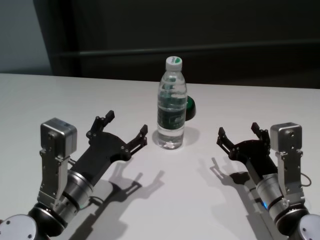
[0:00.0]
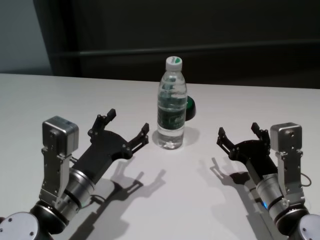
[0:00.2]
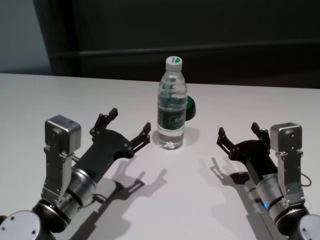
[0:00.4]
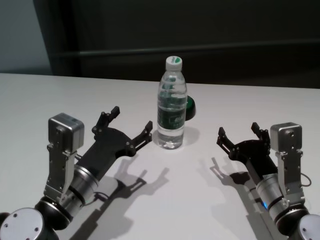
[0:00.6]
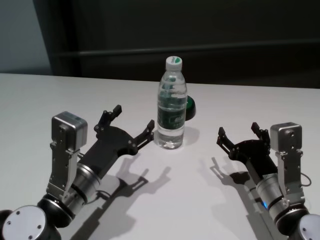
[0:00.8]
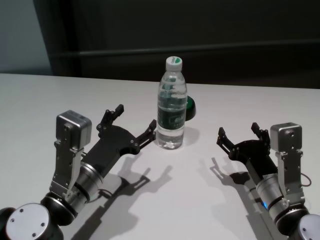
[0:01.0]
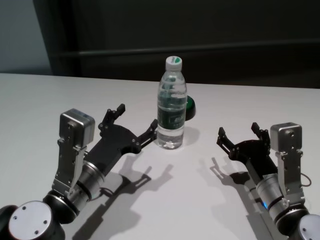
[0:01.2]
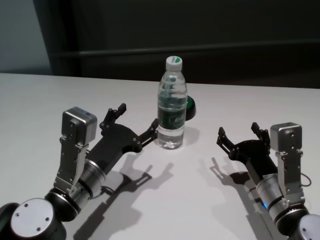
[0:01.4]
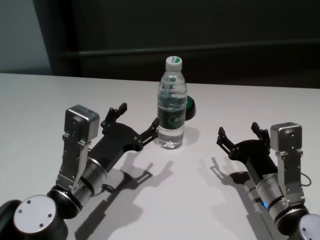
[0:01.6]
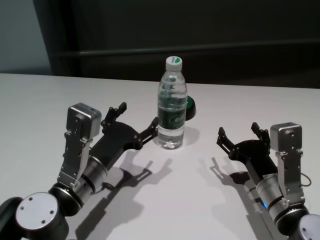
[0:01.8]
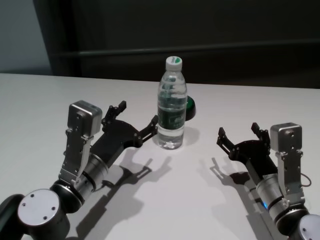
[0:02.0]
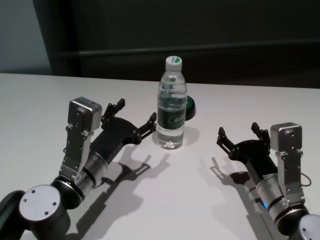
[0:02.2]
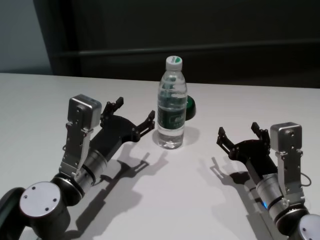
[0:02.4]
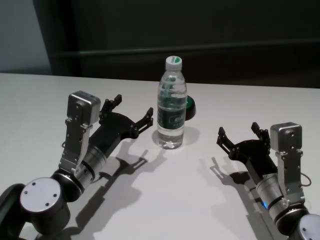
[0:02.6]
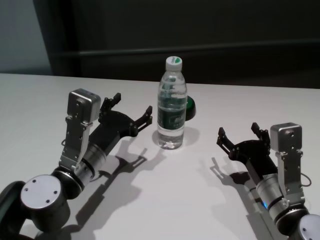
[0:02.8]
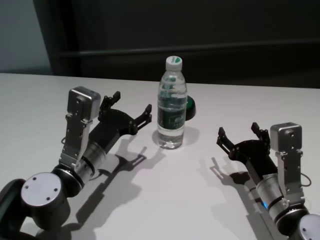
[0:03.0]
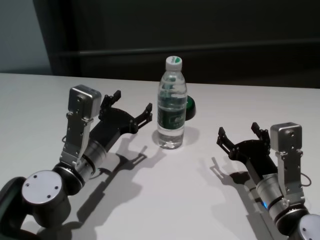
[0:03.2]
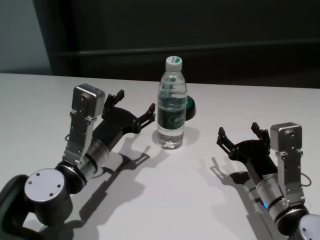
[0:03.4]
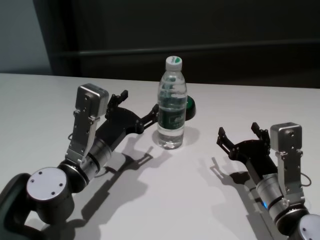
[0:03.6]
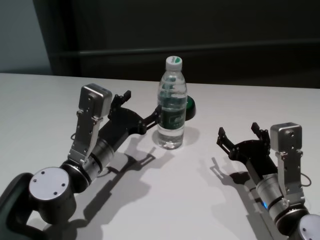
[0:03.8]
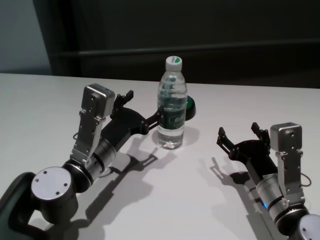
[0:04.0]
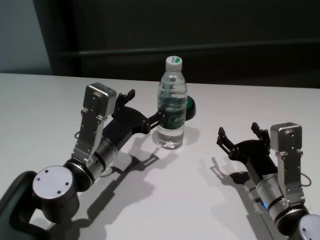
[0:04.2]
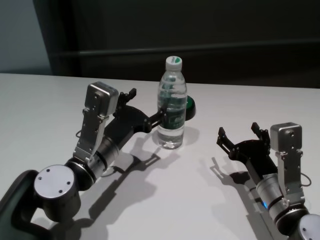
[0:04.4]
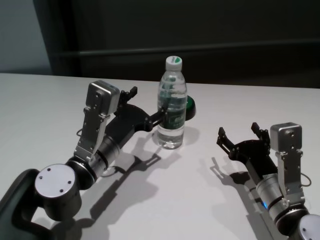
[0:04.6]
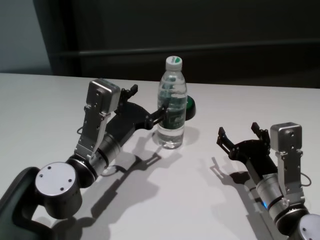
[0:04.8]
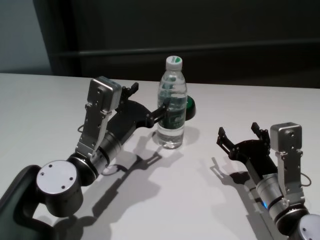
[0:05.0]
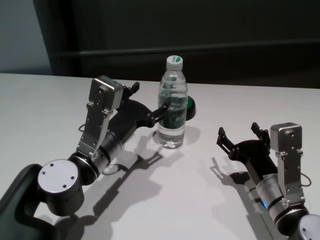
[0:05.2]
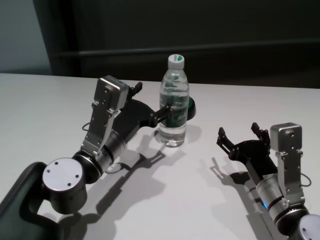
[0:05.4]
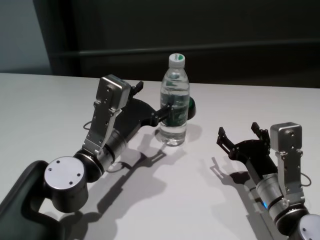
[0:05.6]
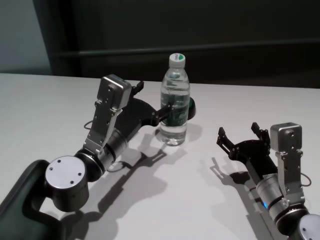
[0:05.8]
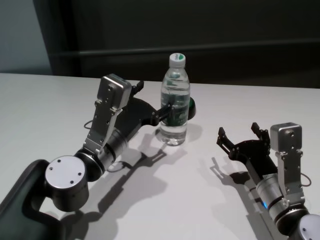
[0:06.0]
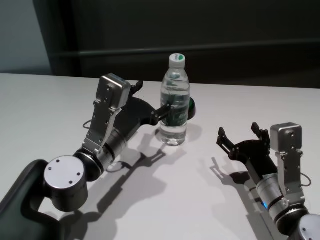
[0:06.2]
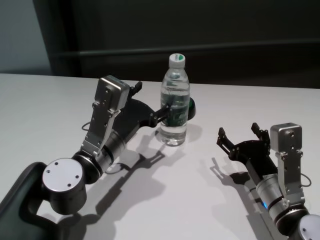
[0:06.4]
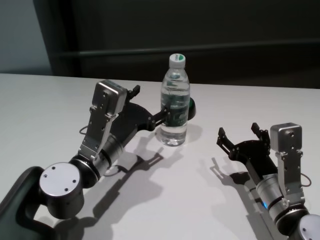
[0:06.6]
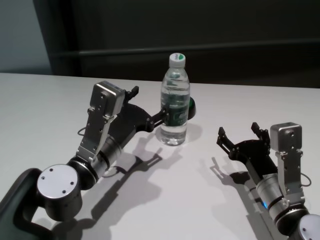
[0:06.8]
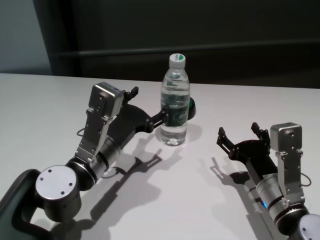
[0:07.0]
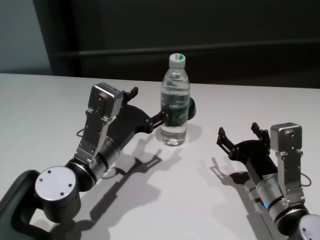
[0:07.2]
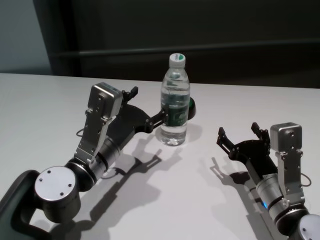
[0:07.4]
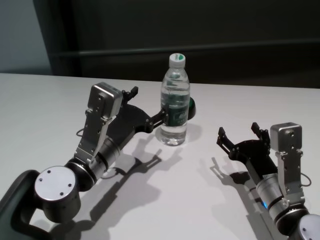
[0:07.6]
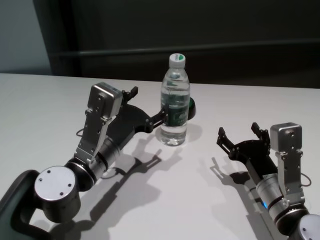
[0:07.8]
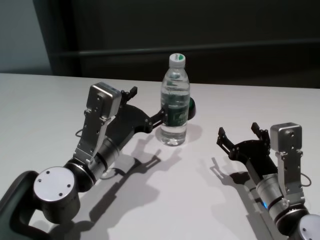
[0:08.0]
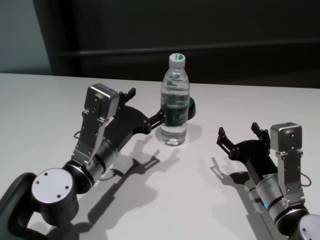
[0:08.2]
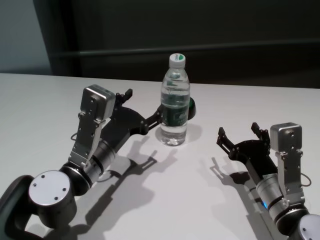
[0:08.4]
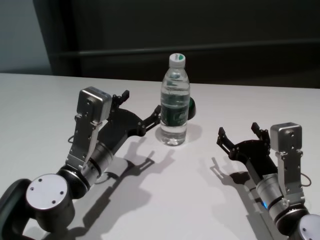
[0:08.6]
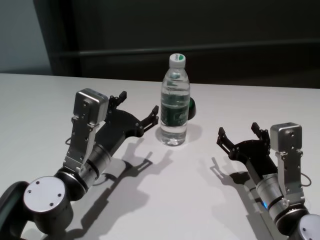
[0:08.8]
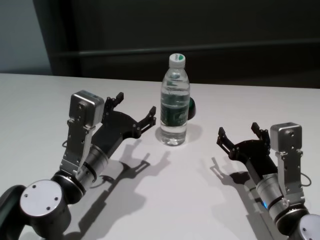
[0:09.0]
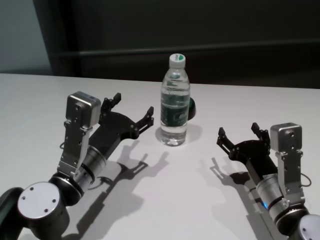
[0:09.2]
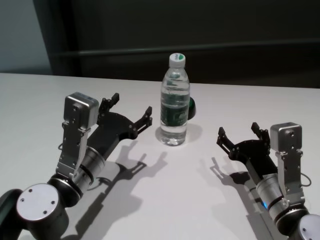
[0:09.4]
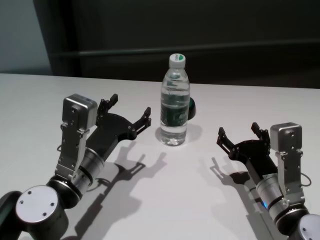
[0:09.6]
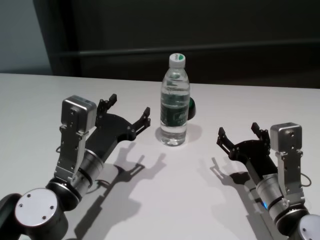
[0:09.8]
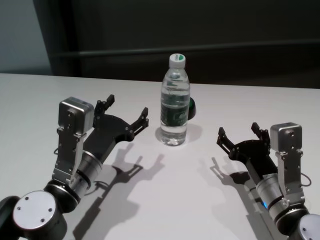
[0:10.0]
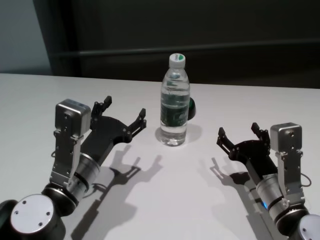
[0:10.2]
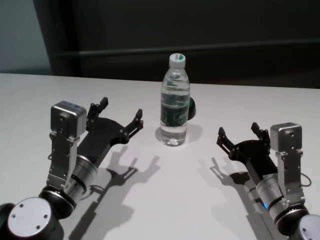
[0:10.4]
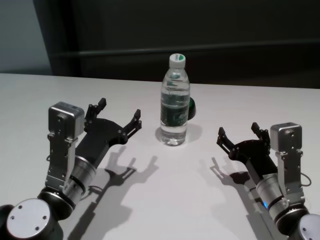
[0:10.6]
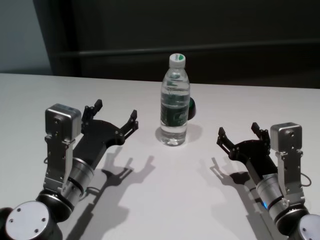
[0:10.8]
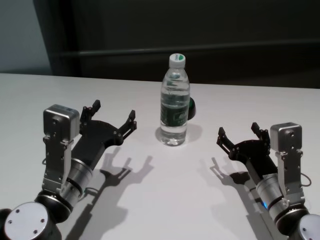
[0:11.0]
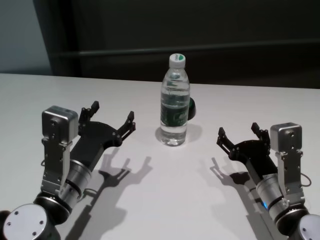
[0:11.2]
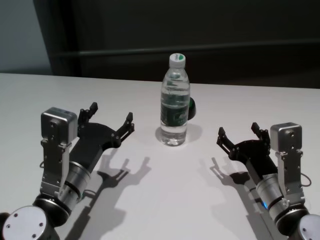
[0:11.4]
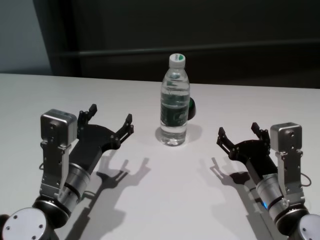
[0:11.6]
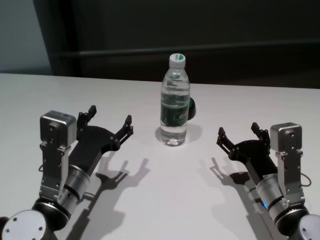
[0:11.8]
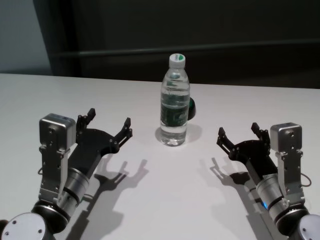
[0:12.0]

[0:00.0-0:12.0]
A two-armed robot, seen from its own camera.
Task of the whole recording: return to a safe position after touching an obstacle with your arm on the white table.
Step, 0:00.0 to 0:08.8: Touch the bottle with left gripper.

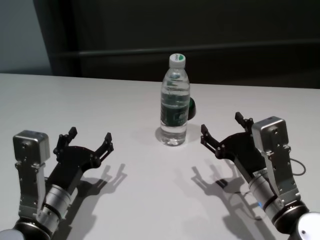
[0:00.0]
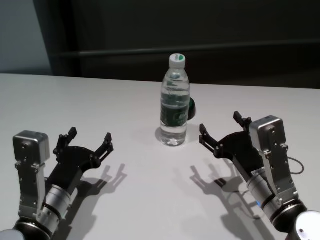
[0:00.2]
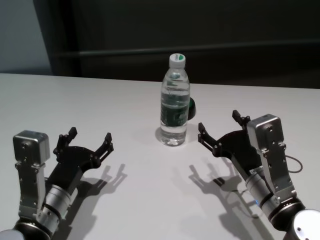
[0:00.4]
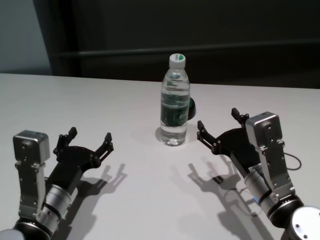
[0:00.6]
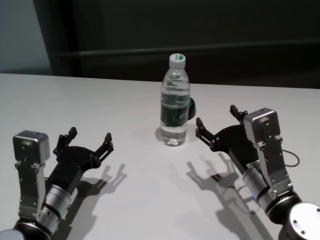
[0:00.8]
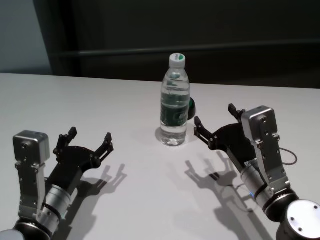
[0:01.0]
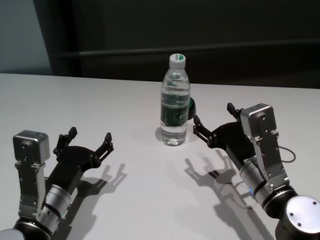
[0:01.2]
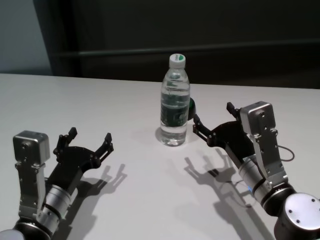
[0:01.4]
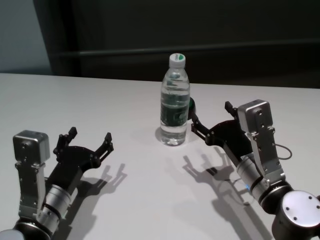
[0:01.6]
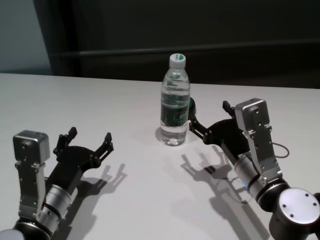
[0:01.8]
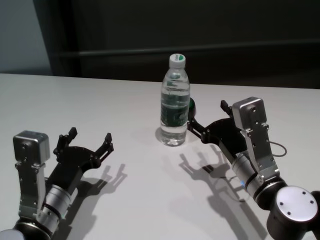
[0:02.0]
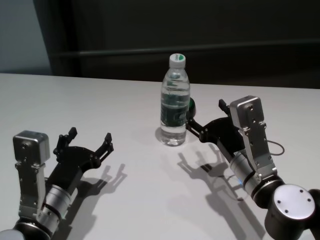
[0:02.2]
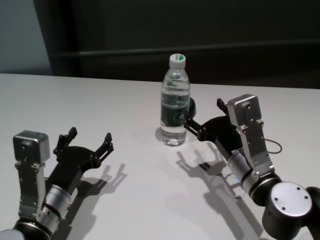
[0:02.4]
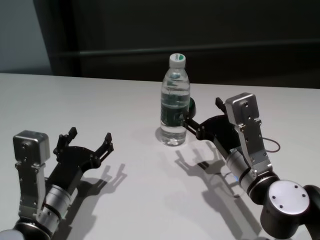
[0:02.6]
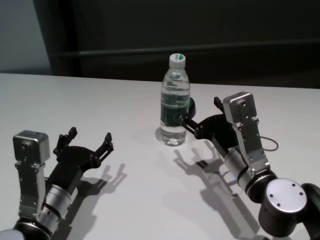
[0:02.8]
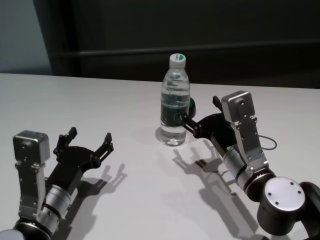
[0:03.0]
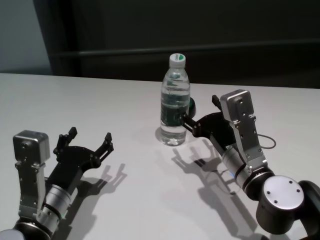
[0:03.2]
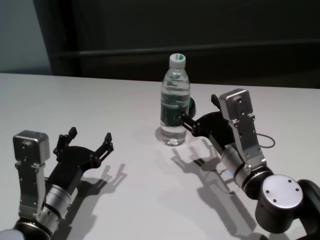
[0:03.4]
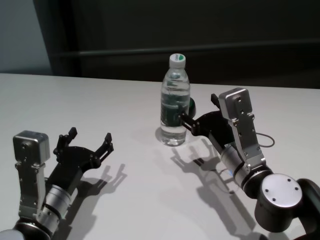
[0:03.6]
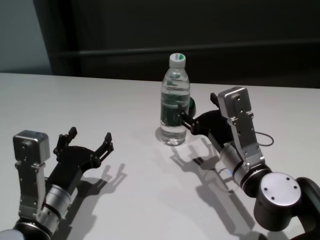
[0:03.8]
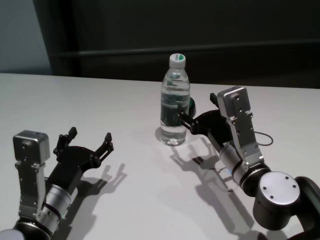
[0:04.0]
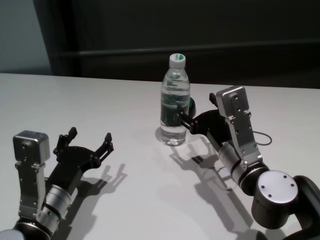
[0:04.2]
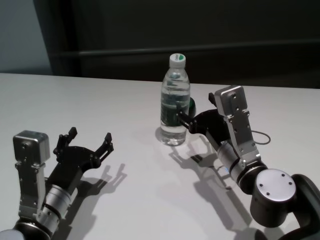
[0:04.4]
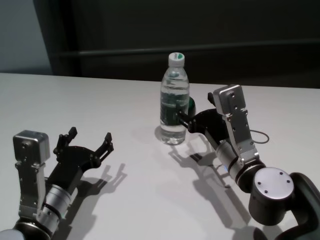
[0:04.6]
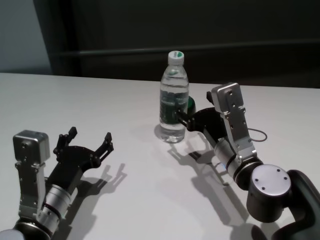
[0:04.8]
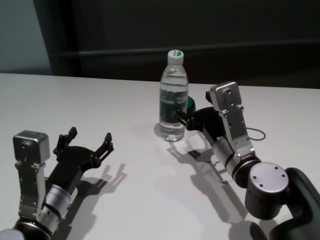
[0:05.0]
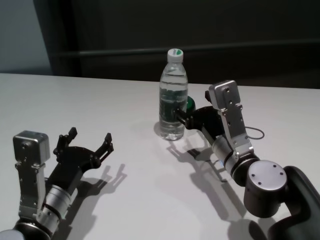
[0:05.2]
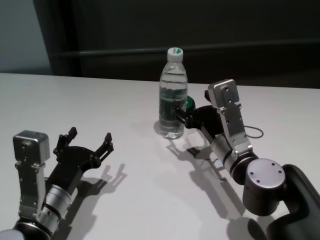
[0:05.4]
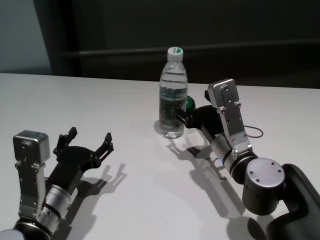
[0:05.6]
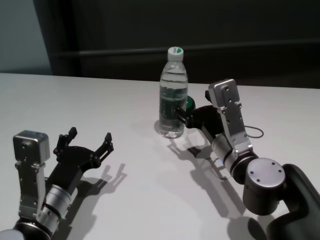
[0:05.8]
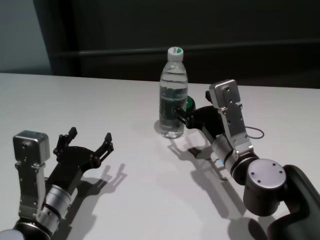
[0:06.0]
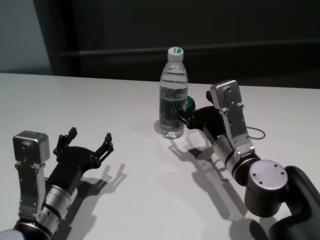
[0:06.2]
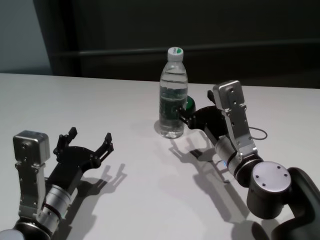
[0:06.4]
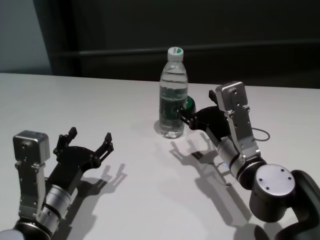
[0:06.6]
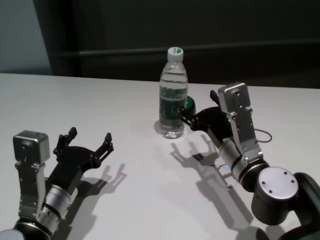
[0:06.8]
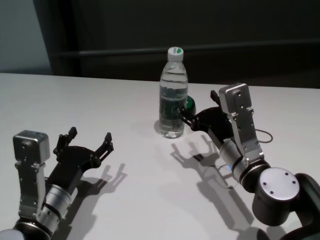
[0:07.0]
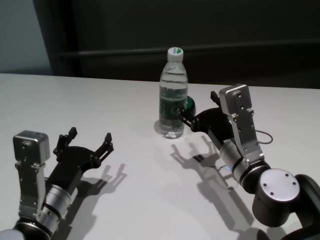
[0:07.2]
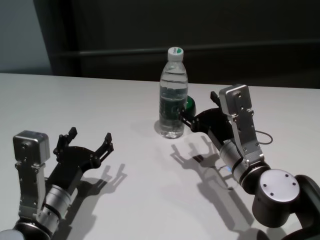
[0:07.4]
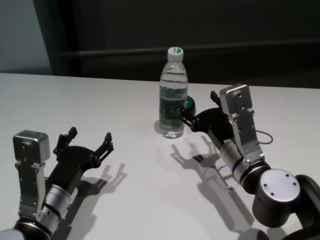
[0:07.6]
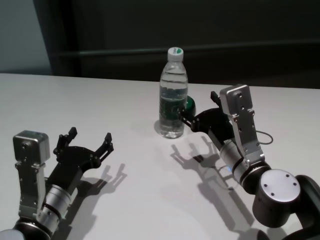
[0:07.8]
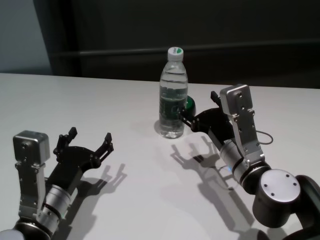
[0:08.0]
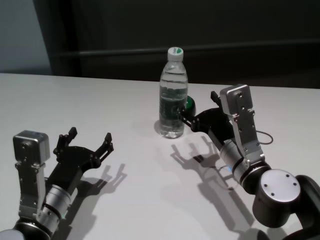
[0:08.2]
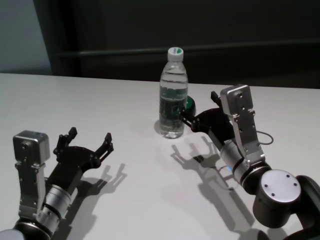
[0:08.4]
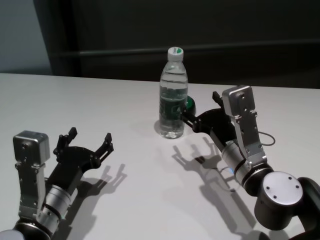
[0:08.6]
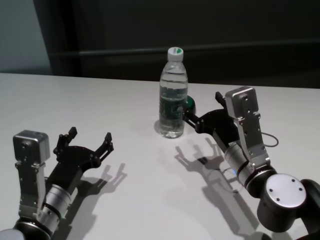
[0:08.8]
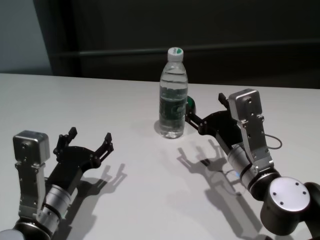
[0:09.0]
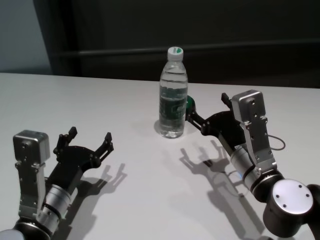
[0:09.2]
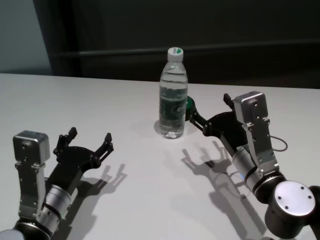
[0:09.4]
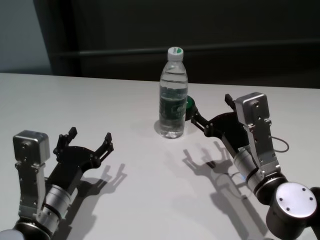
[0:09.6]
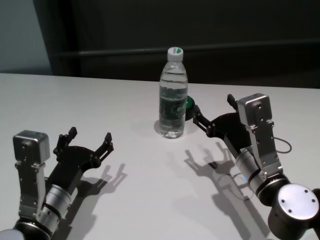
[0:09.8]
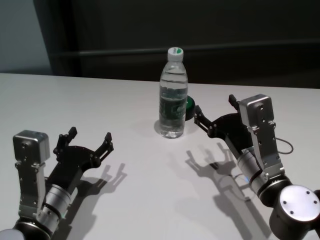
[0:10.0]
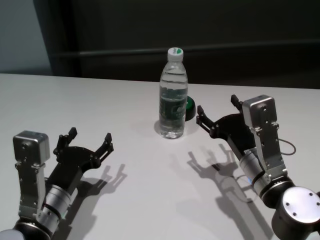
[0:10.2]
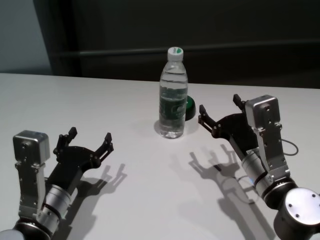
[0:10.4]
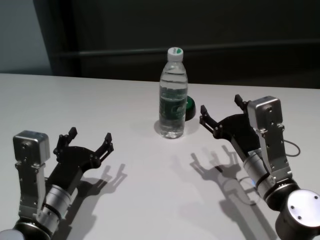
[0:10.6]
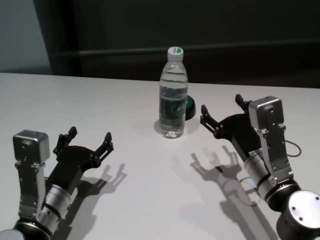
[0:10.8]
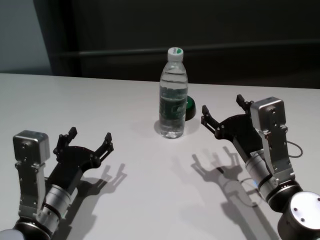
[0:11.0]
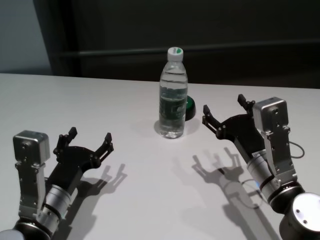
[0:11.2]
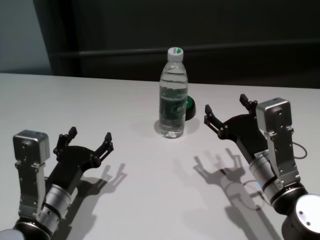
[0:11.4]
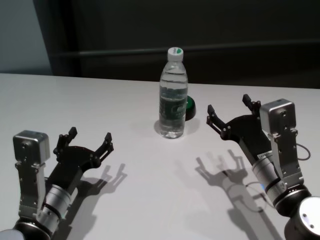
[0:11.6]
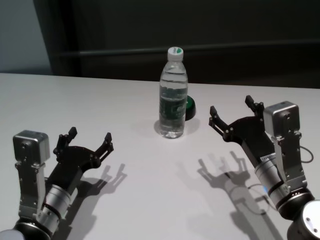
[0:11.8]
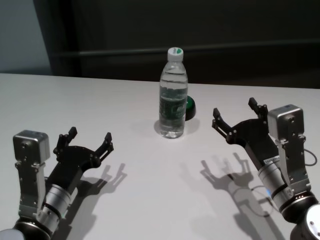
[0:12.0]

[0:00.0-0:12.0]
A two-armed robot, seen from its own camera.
Task of the whole recording: return to a safe position after touching an obstacle with your arm on the white table.
Step, 0:00.0 to 0:09.2: Touch the bottle with right gripper.
